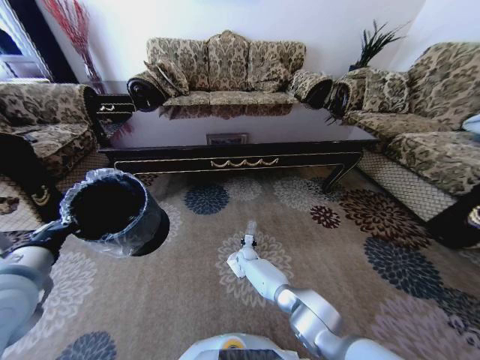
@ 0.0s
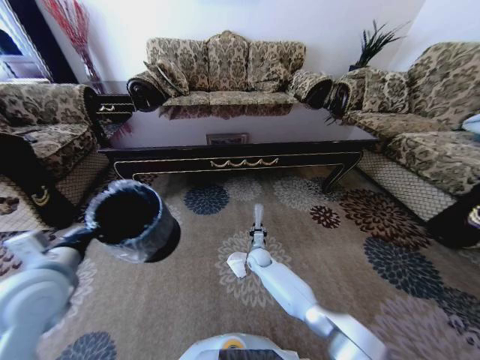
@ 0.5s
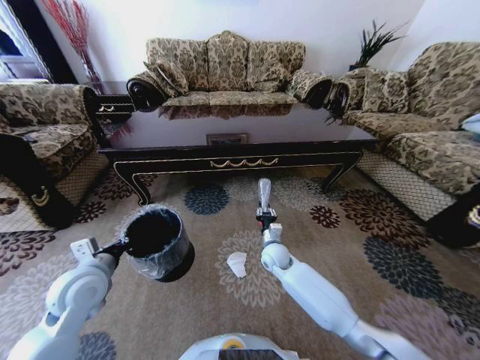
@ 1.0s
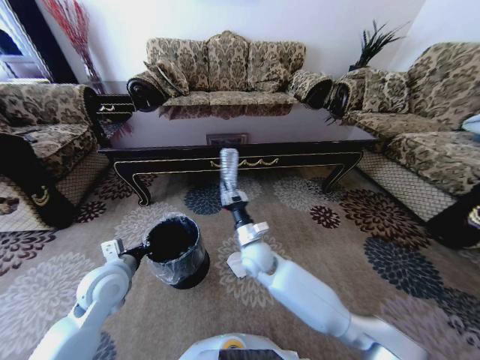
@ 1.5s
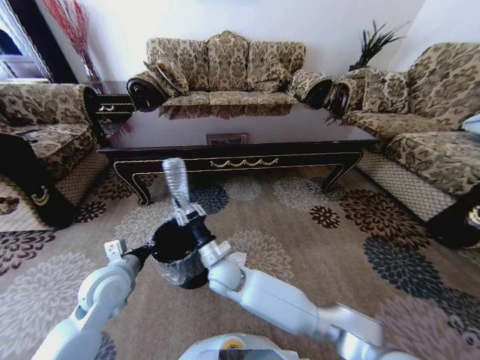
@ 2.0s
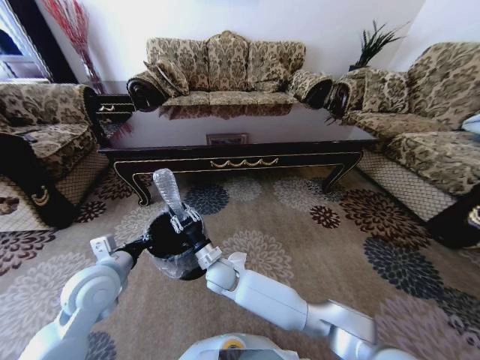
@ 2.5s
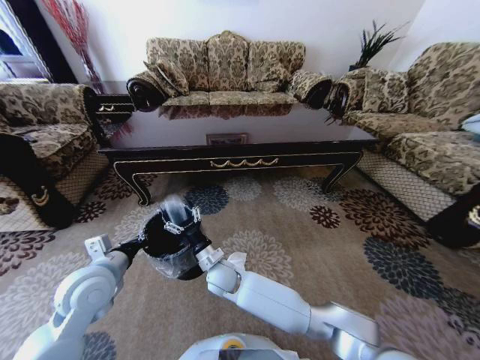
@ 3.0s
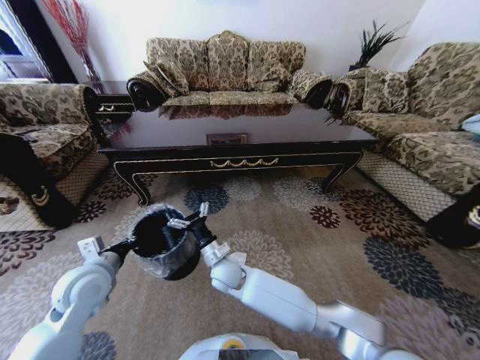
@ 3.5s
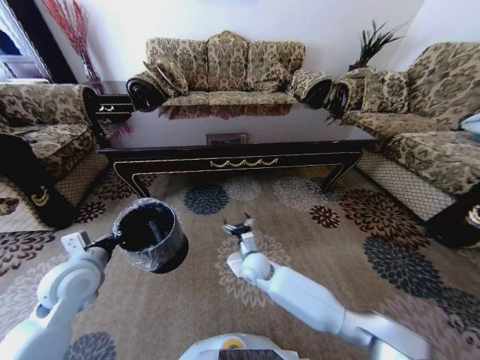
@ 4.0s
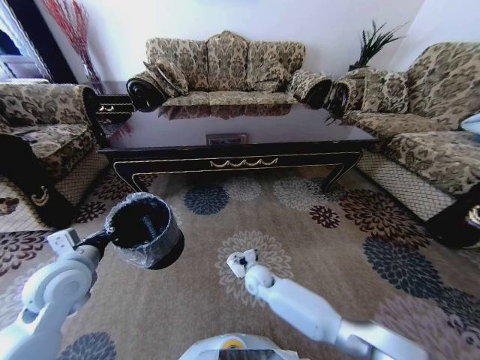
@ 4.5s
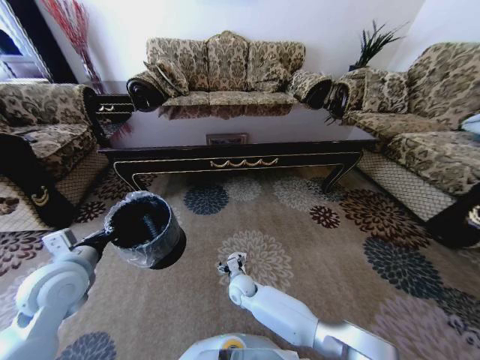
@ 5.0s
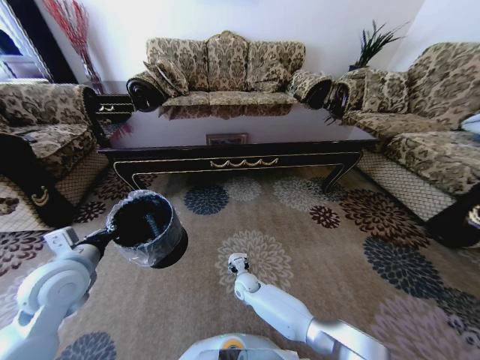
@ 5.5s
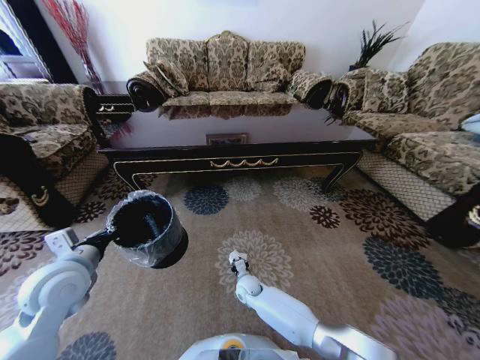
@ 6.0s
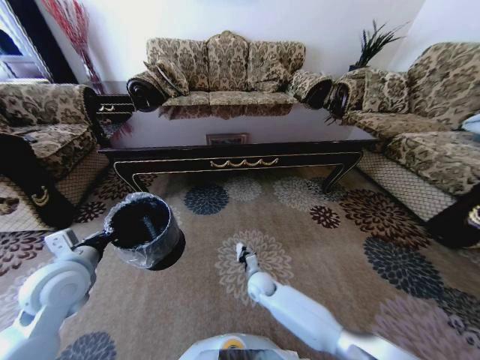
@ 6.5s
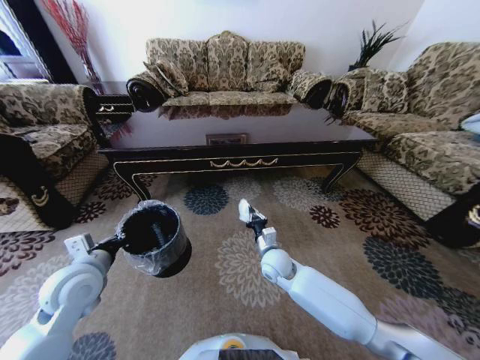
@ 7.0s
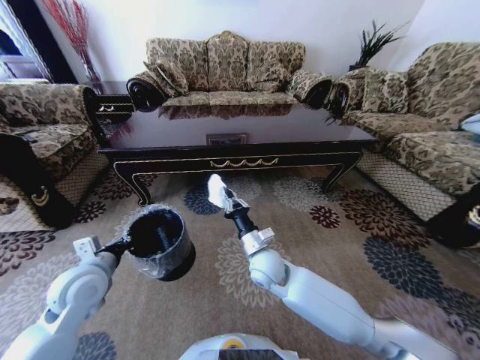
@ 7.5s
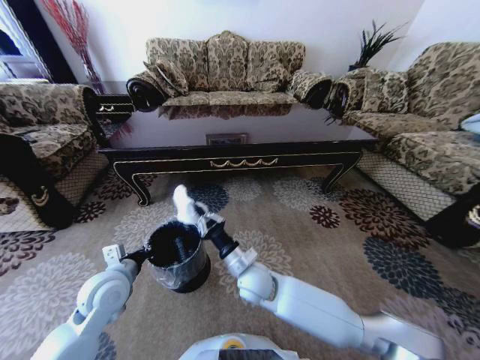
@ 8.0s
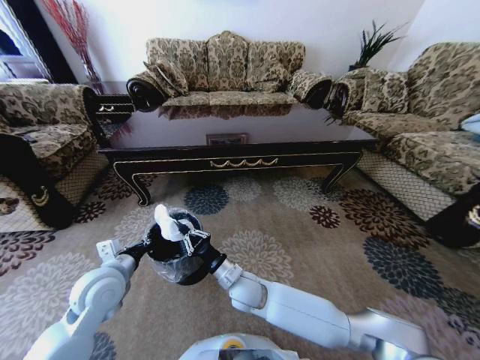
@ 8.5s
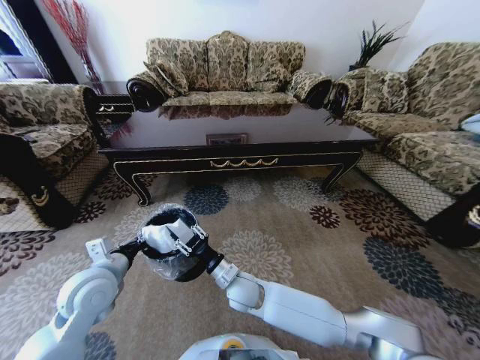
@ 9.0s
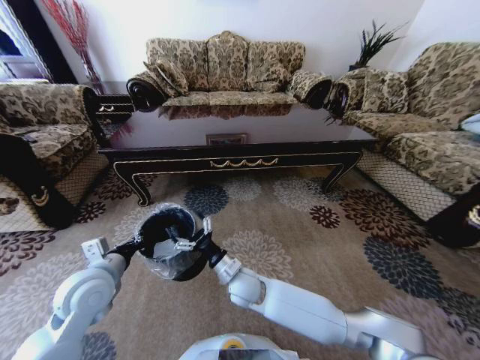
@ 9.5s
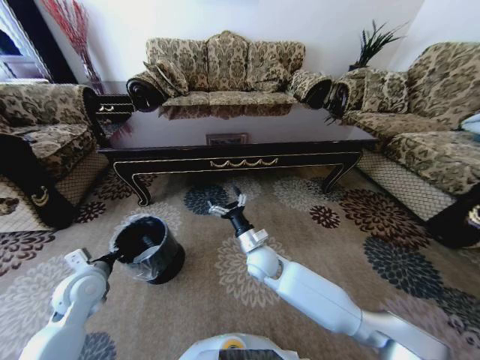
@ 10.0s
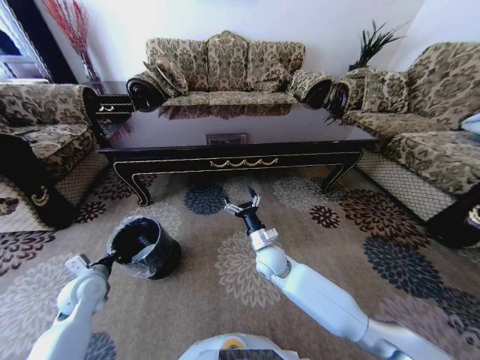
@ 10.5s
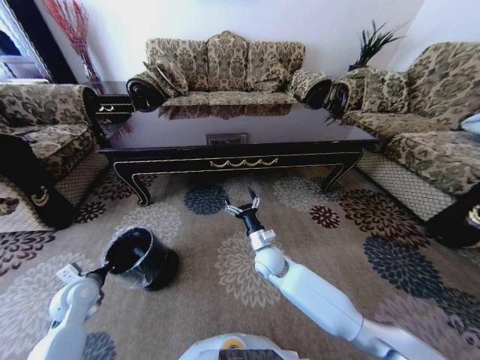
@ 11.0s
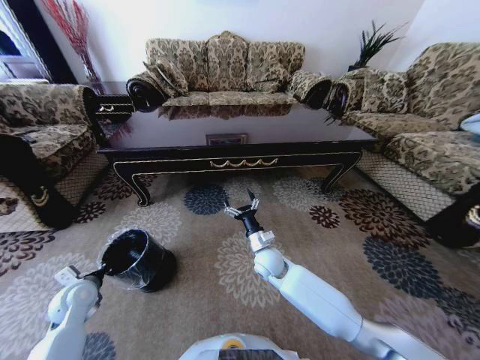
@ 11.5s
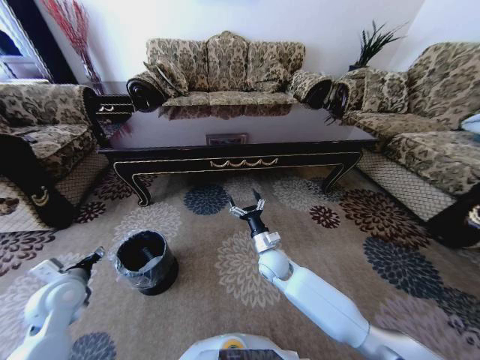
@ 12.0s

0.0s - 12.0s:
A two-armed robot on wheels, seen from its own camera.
Task of the whole recording: Move to the front of the table and pick up the trash from the floor, then place it into the trash bin.
0.0s - 2.0s: The left gripper goes about 15 cm downward, forward and to the right. The right gripper moves upward, backward and to the left, about 30 cm.
2.0s - 4.0s: The right gripper travels to the right, downward and forward by some 15 cm, and opens up; the left gripper travels to the left by about 5 cm.
4.0s - 6.0s: The right gripper shifts roughly 15 cm downward, and closes.
6.0s - 8.0s: The right gripper is displaced upward by about 20 cm. The left gripper moves downward and to the right, about 10 cm.
8.0s - 10.0s: The right gripper is displaced forward by approximately 5 cm, and opens up. Meanwhile the left gripper shifts roughly 10 cm to the left.
10.0s - 12.0s: The left gripper opens up; the right gripper ends up some 5 cm from where it was.

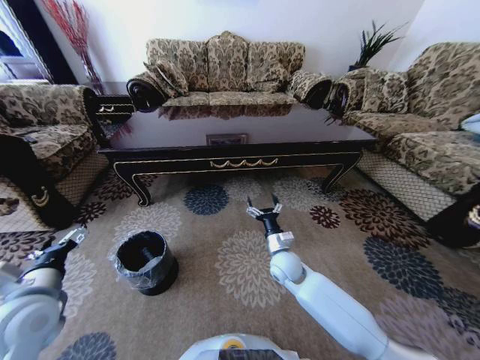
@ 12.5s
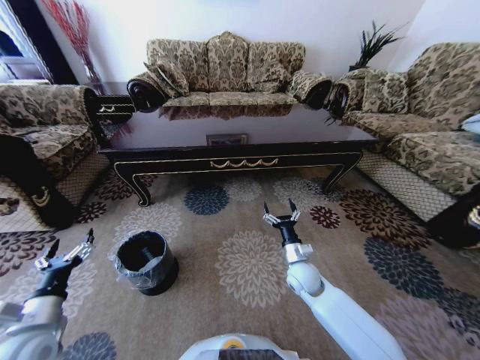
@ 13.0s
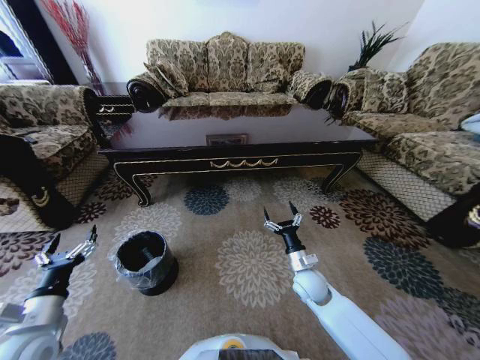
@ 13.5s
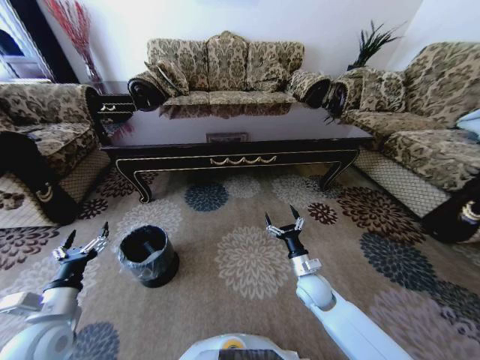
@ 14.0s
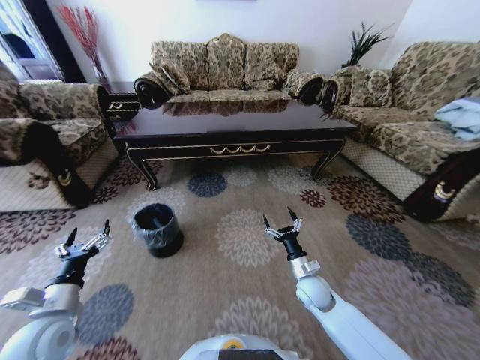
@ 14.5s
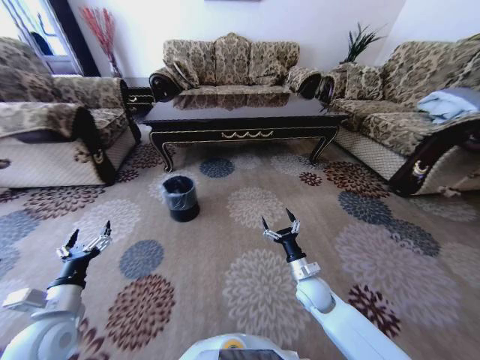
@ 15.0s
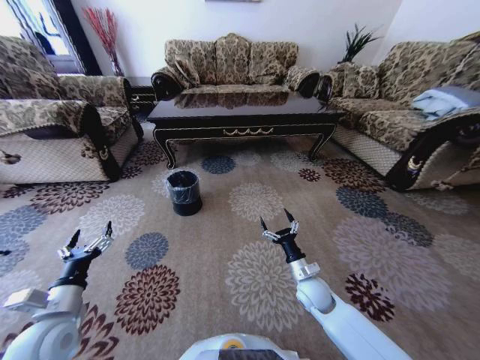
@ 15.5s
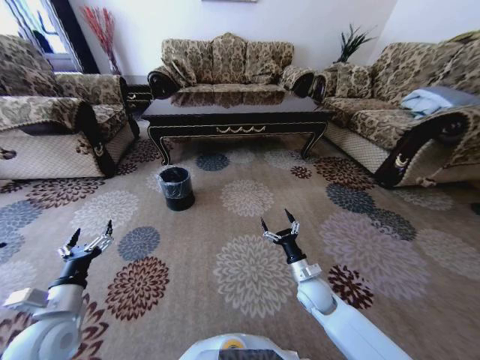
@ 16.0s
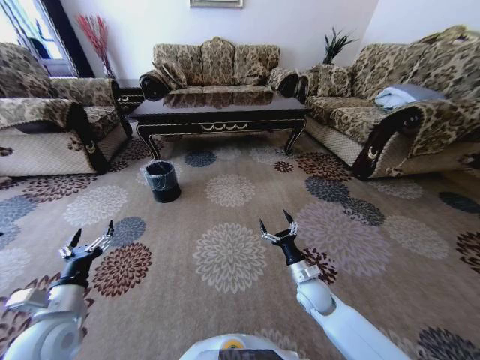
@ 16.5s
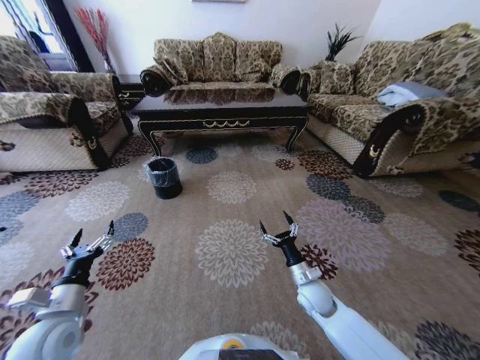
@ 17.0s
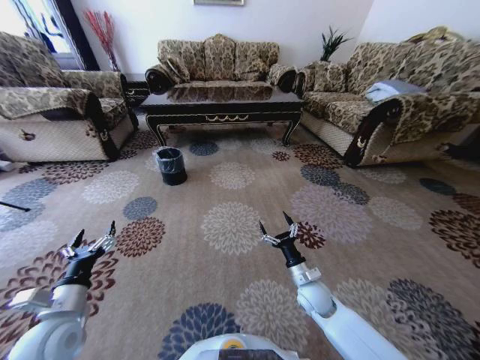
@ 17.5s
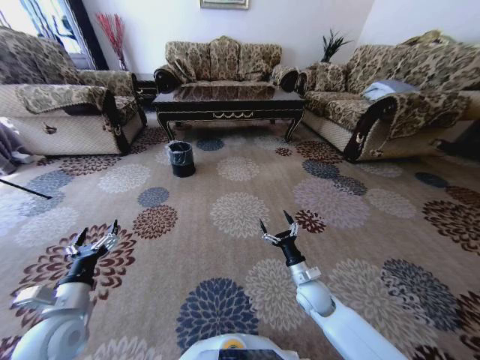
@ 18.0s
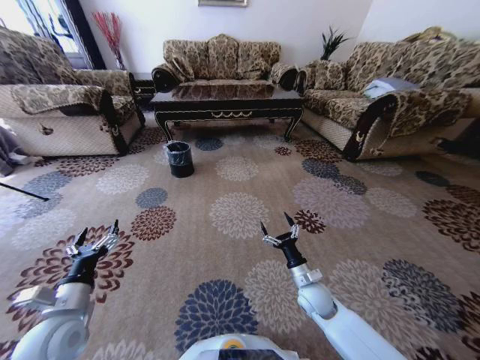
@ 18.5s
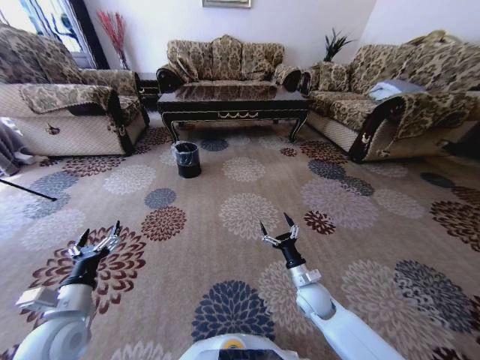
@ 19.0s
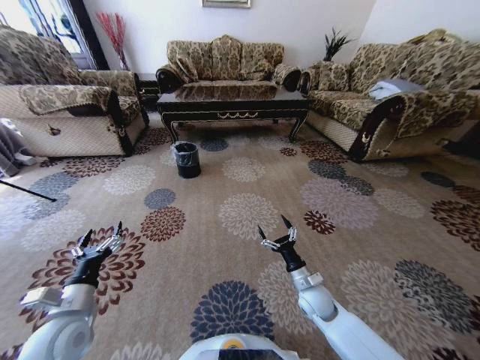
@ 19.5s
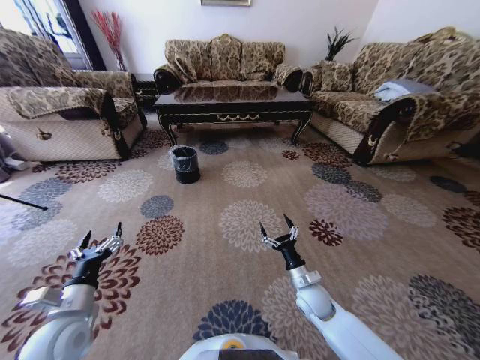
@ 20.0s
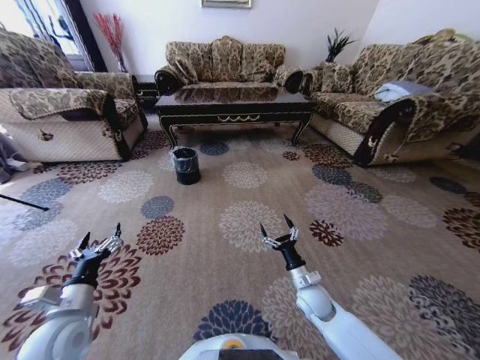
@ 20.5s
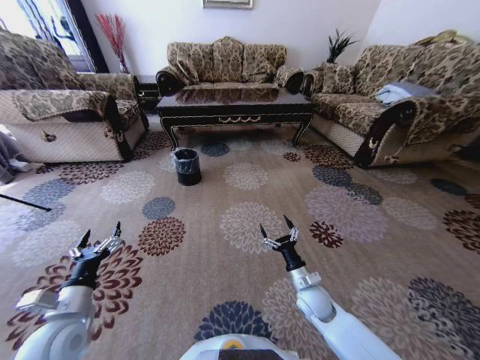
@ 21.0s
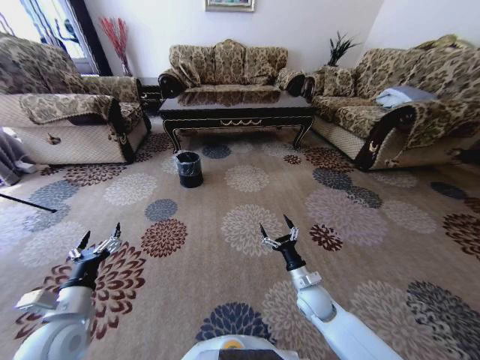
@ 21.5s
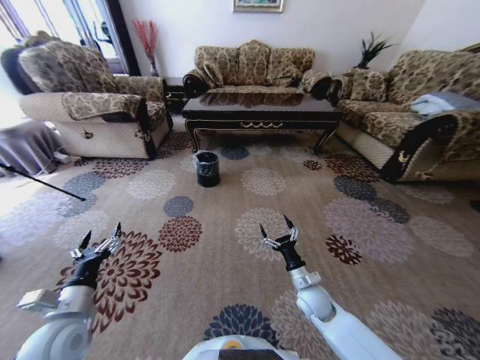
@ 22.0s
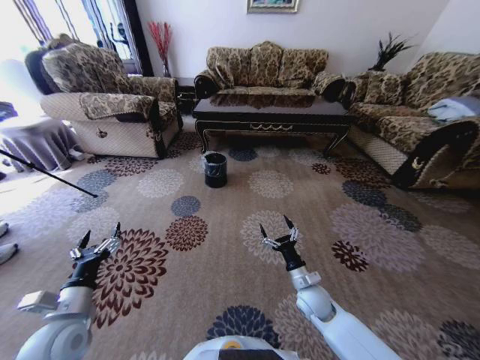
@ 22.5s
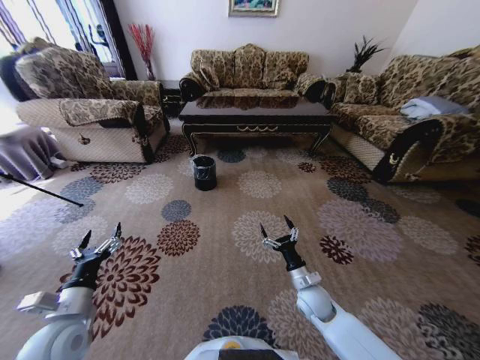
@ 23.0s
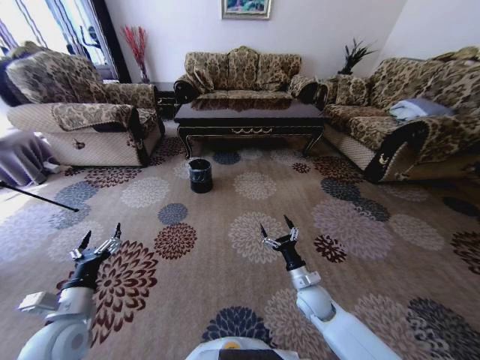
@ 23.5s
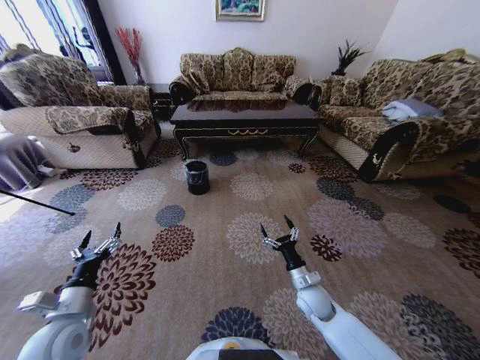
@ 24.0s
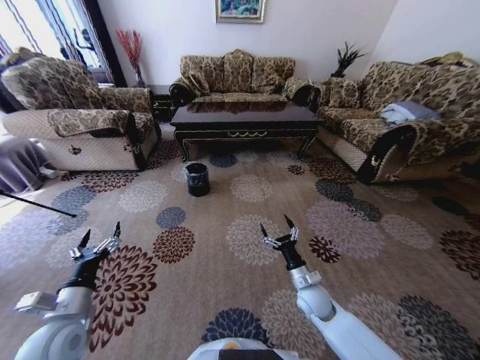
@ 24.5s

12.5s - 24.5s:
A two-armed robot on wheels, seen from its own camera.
Task of the whole recording: Move to the front of the table and pick up the trash from the floor, then place it into the trash bin.
12.5s - 14.5s: The right gripper shifts approximately 10 cm to the right and backward. The left gripper heads downward, covering roughly 5 cm.

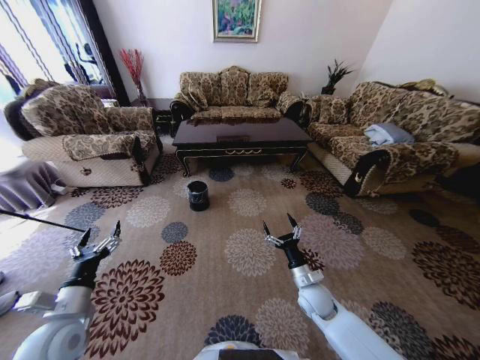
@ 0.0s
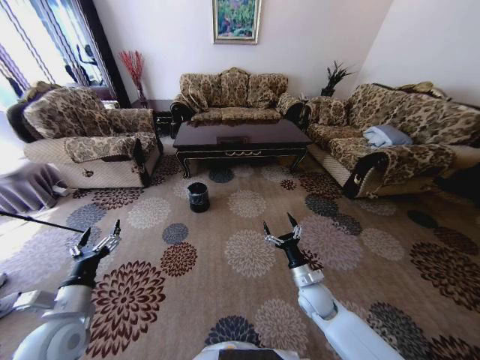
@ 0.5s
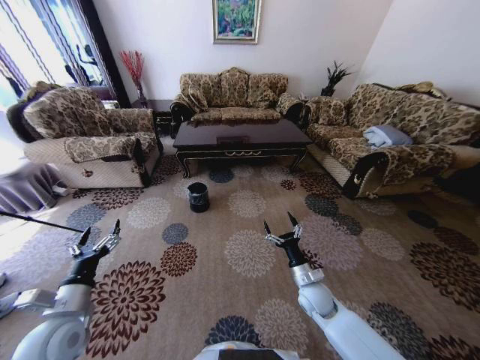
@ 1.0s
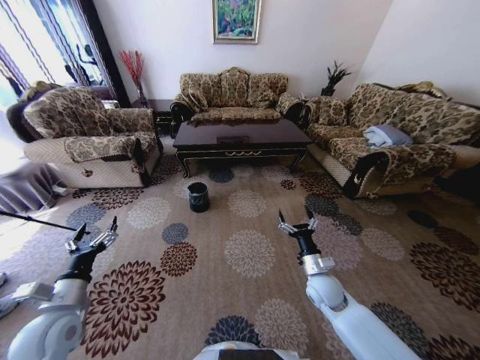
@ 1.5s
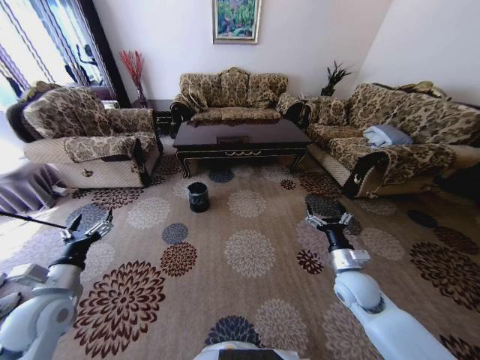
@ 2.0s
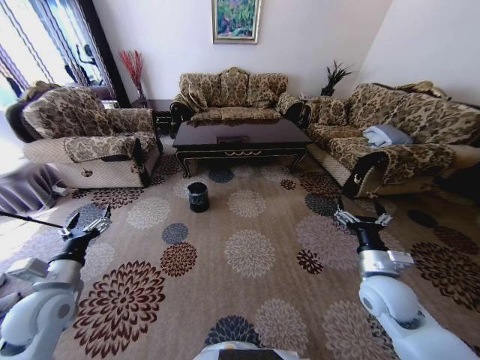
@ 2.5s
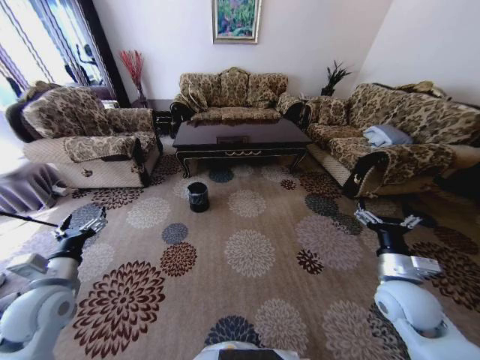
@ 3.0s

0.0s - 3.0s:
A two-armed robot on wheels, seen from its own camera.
Task of the whole recording: Move to the front of the table and pick up the trash from the floor, then place it into the trash bin.
0.0s - 1.5s: The grippers stay close to where they were, moving slightly.
1.5s - 3.0s: The left gripper shifts by approximately 5 cm, while the right gripper travels upward, to the right and backward by approximately 15 cm.
